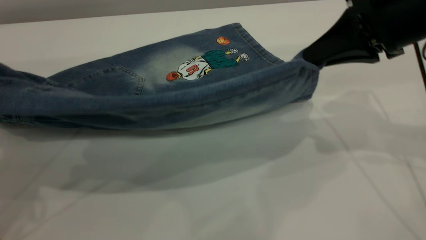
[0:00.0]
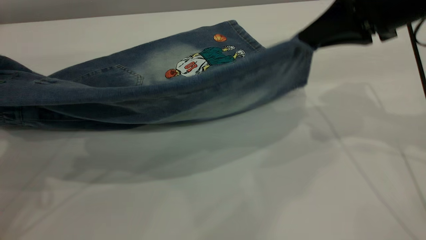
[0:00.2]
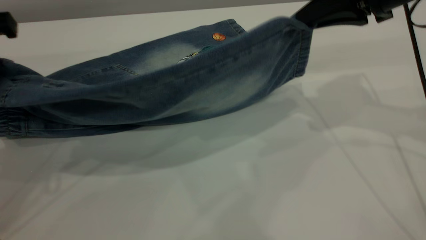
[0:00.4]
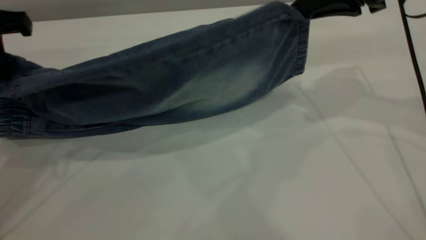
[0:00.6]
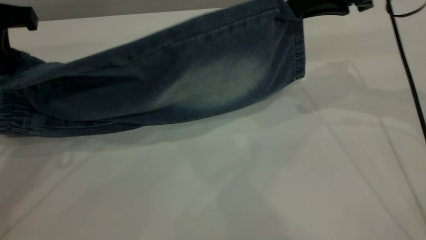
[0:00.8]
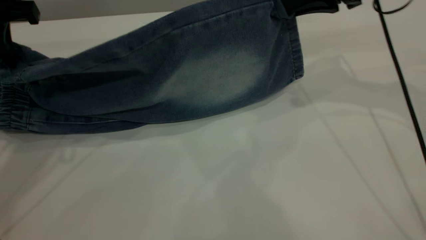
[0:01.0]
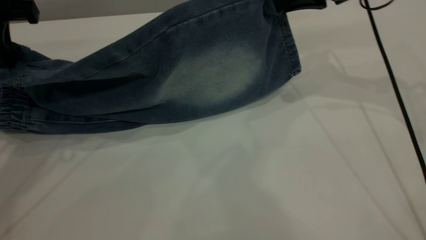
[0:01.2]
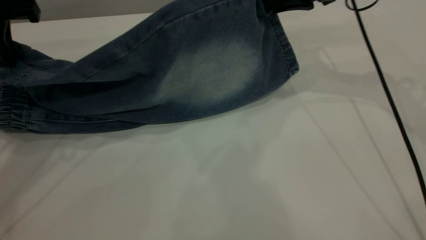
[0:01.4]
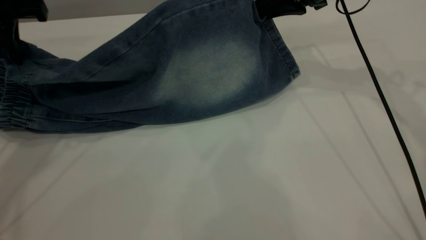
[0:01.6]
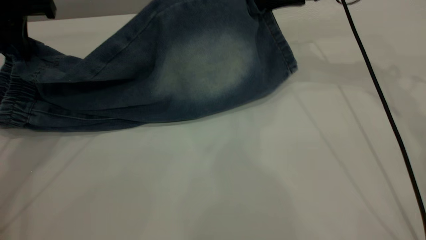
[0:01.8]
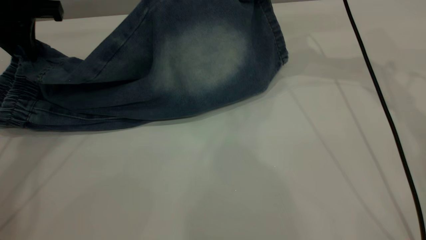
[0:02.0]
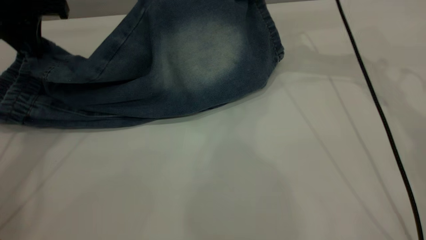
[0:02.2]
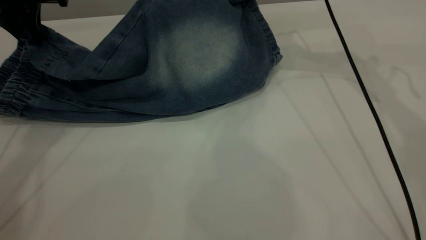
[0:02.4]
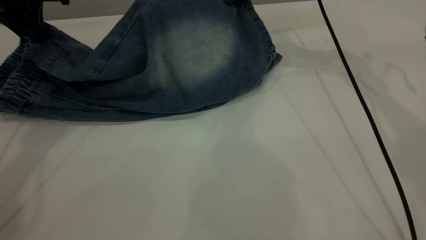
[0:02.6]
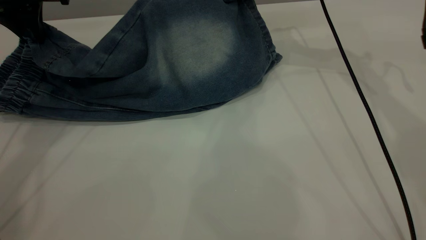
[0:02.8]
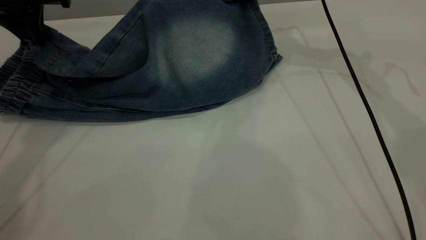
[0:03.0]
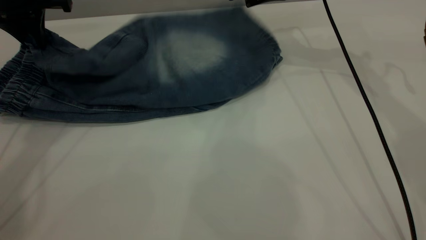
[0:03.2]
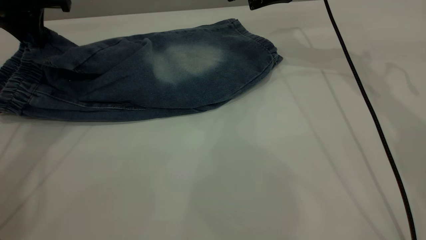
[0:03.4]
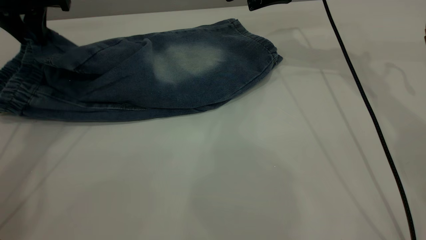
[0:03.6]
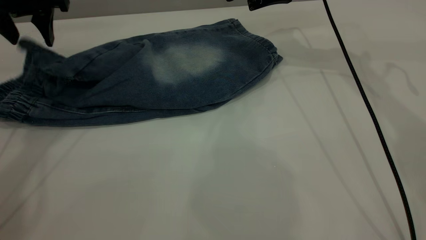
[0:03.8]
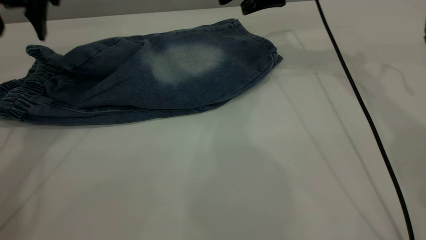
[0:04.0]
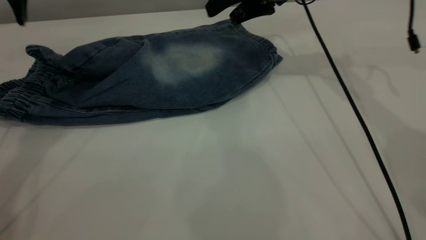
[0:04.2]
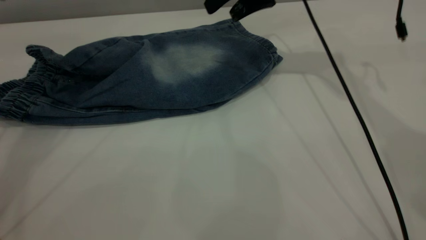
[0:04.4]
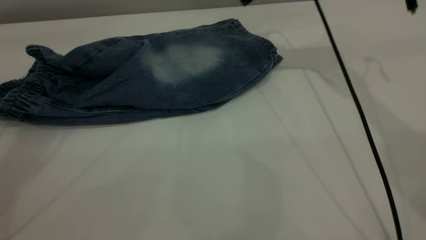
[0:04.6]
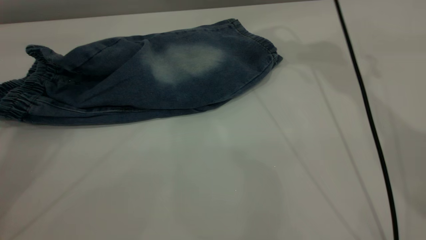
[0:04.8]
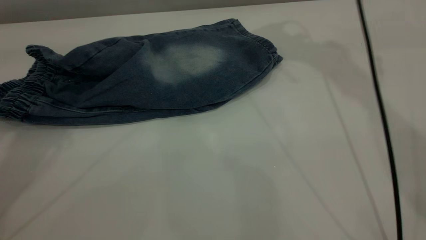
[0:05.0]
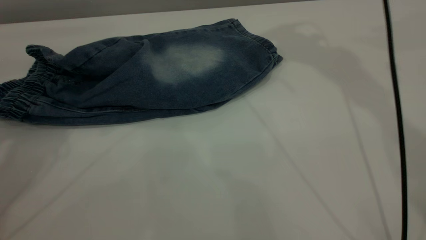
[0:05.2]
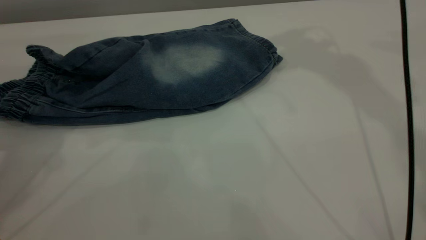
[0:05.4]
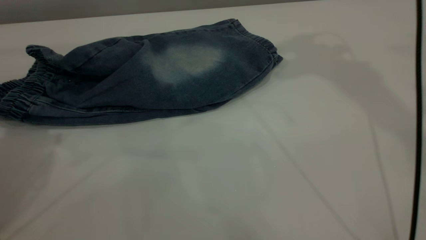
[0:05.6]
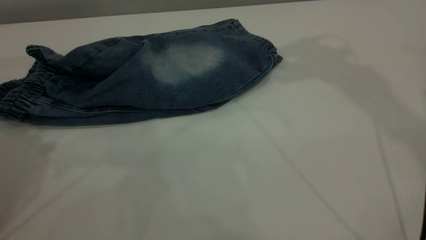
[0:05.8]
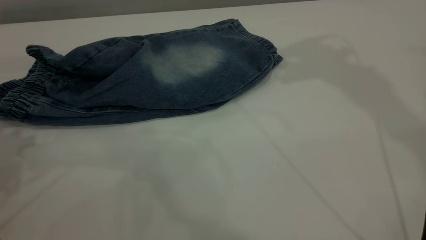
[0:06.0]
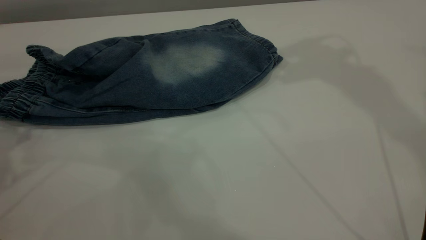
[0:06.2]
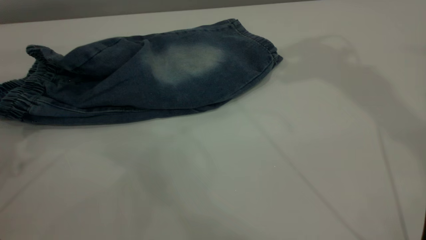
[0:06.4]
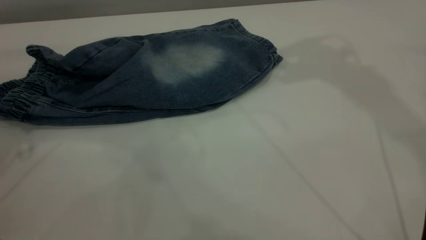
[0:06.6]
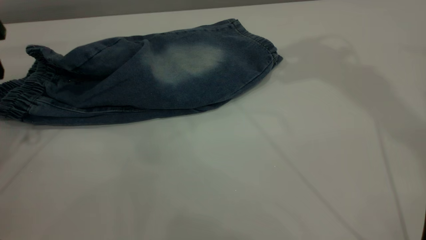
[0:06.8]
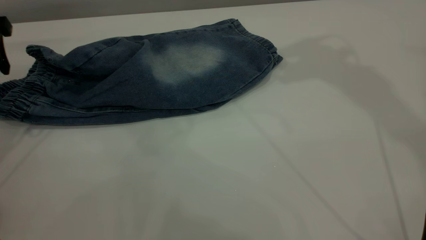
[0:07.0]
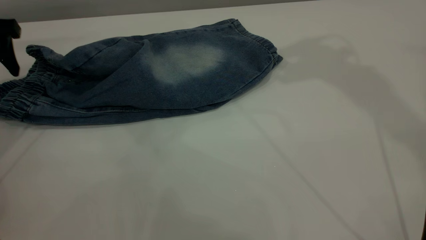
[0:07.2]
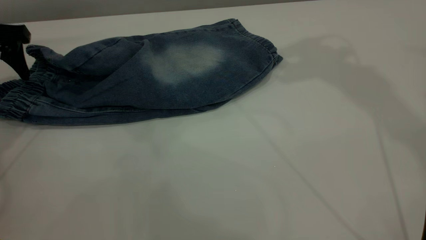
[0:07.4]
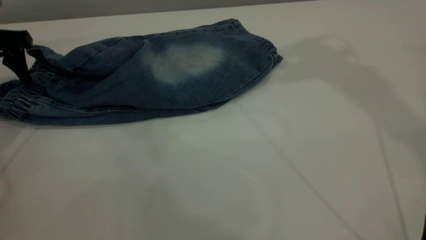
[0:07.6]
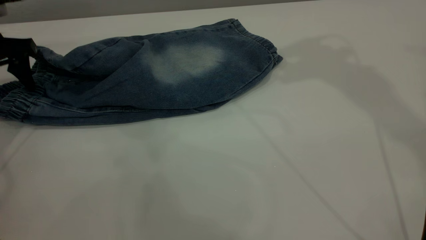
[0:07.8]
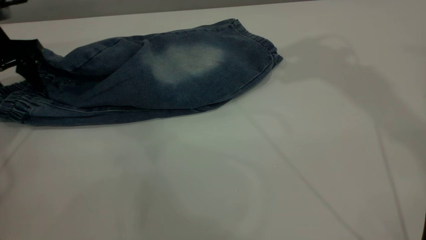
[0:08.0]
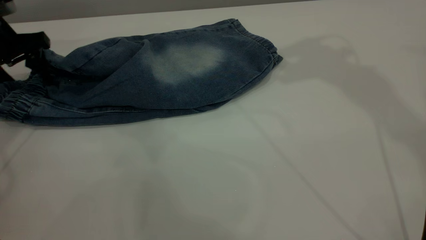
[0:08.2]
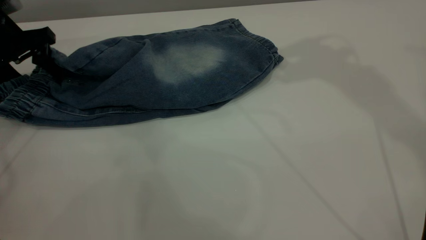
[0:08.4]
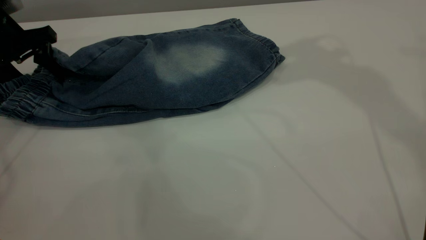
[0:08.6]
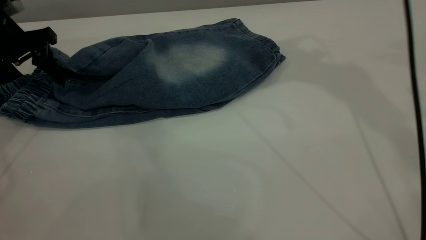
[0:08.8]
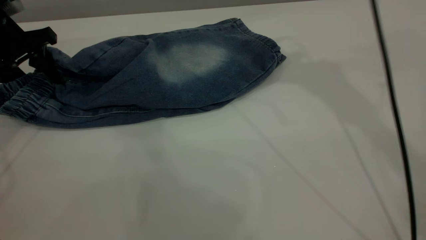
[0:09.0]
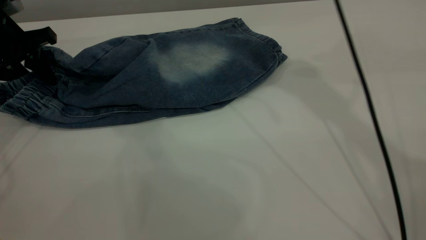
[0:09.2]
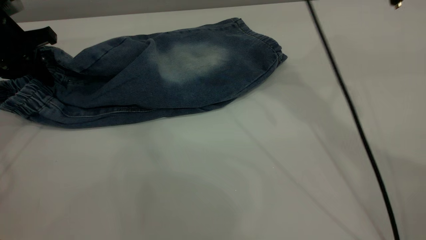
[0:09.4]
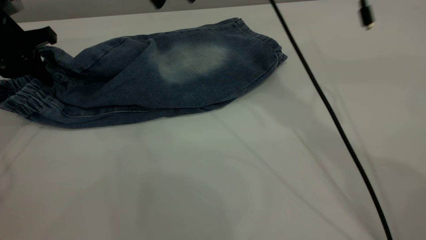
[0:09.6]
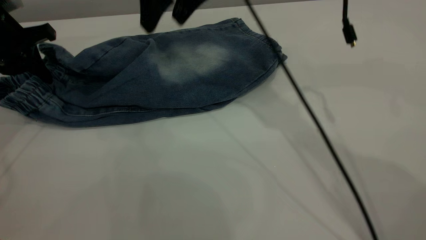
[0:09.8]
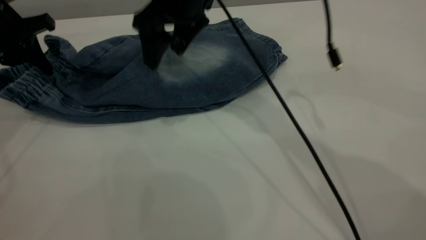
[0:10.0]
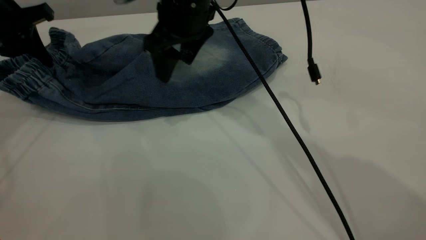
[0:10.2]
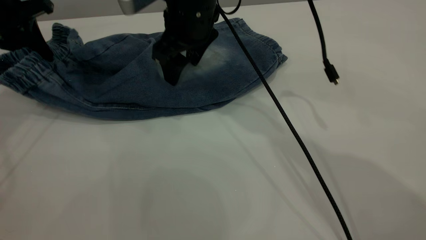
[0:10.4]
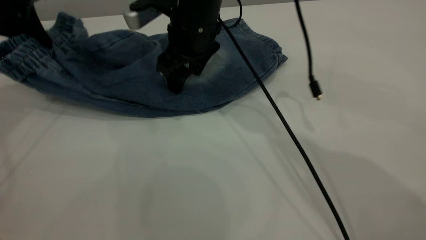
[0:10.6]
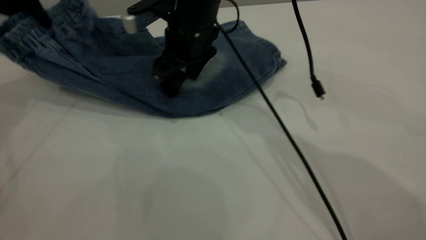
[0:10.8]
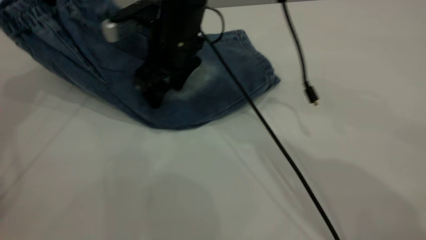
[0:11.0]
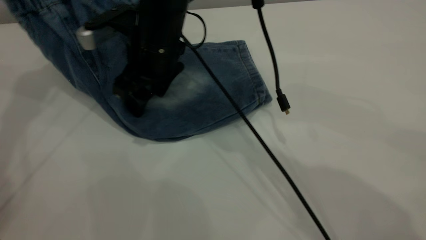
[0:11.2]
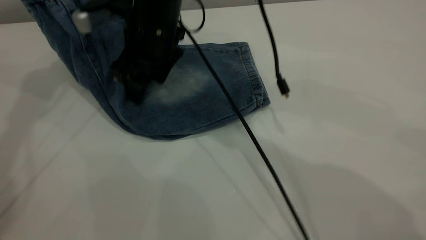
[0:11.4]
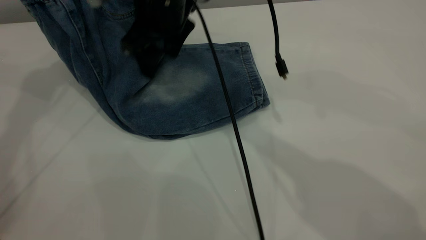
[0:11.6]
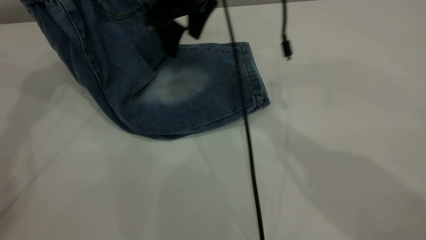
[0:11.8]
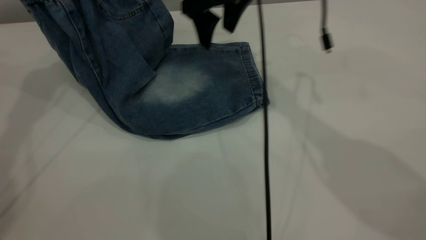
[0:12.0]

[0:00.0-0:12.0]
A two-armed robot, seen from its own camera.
Step, 0:00.0 to 0:04.2: Fold the bottom of the pants upward.
0:00.0 to 0:01.6: Both grippers move forward, about 10 cm.
0:01.6 to 0:03.0: Both grippers move forward, approximately 5 cm. The right gripper opens its fingers.
0:03.0 to 0:04.4: The right gripper opens its fingers; the left gripper moves upward, about 10 cm, and opens its fingers.
0:04.4 to 0:06.0: The left gripper travels backward, downward and to the left by about 15 cm. The right gripper is displaced upward by approximately 25 cm.
0:06.0 to 0:07.6: The left gripper moves forward and downward, approximately 15 cm.
0:07.6 to 0:09.0: The right gripper moves downward and to the left, approximately 10 cm, while the left gripper closes.
0:09.0 to 0:10.4: The left gripper closes its fingers; the right gripper shifts roughly 25 cm downward and to the left.
0:10.4 to 0:12.0: The right gripper heads to the right, covering about 5 cm, while the left gripper heads upward and to the right, covering about 10 cm.

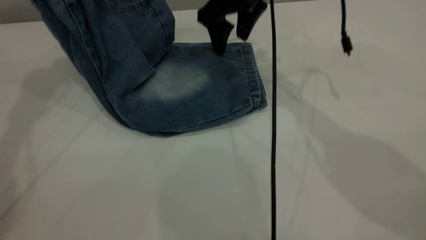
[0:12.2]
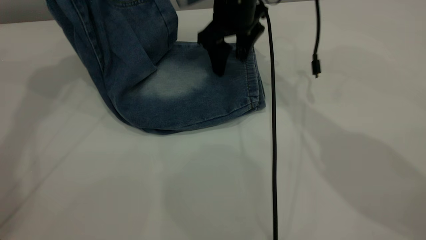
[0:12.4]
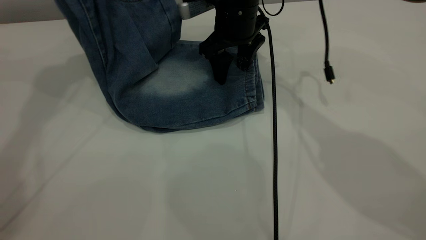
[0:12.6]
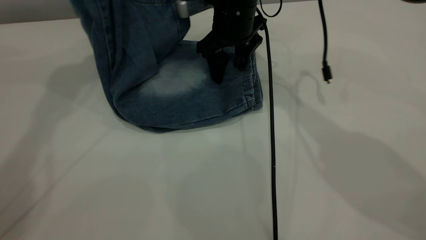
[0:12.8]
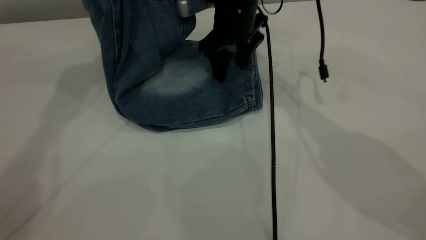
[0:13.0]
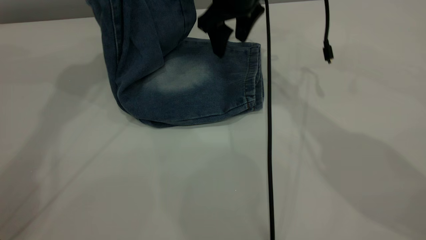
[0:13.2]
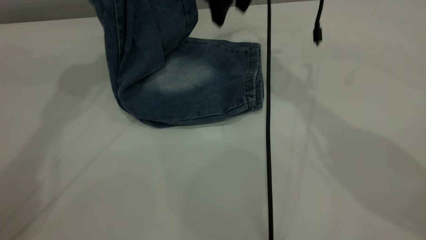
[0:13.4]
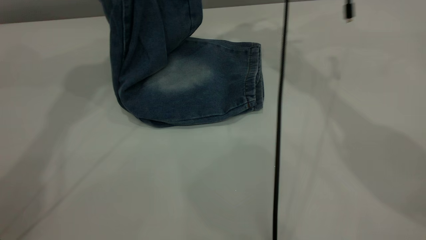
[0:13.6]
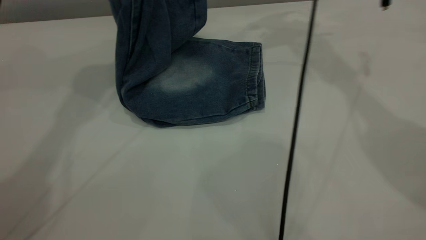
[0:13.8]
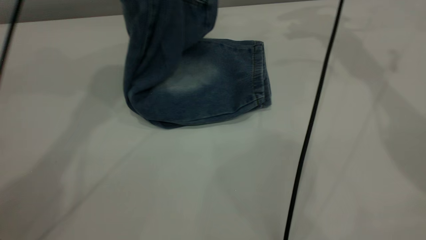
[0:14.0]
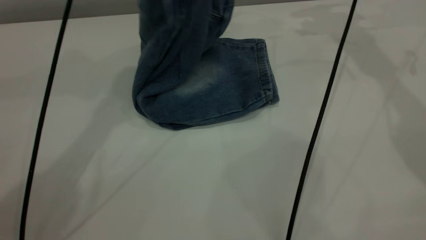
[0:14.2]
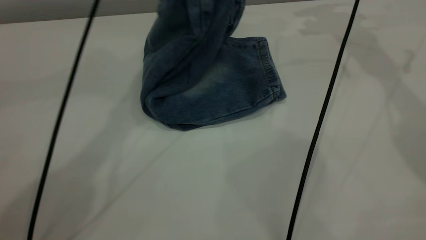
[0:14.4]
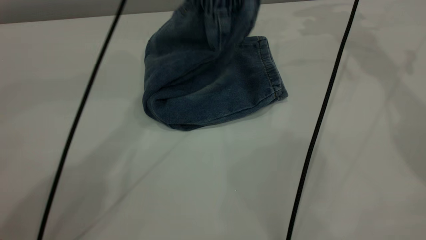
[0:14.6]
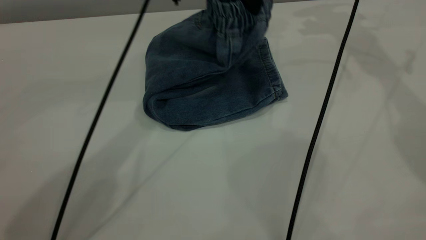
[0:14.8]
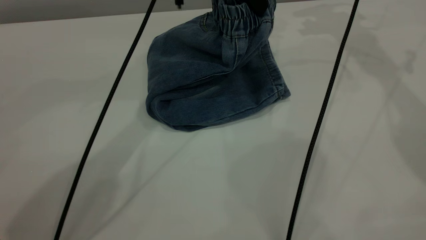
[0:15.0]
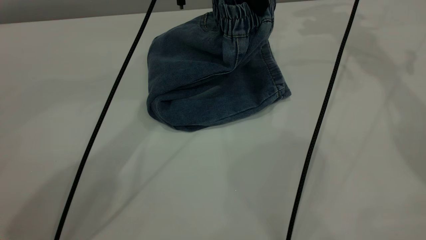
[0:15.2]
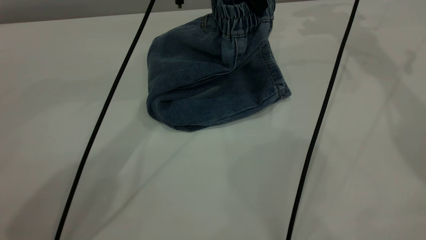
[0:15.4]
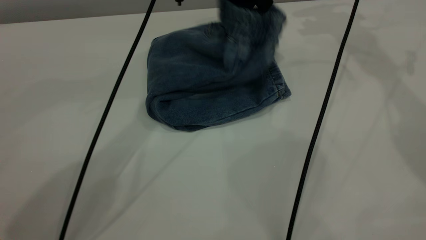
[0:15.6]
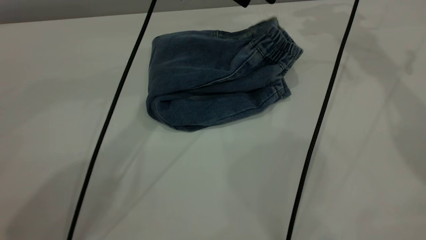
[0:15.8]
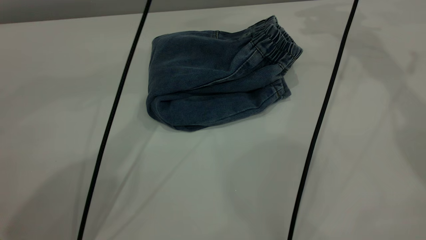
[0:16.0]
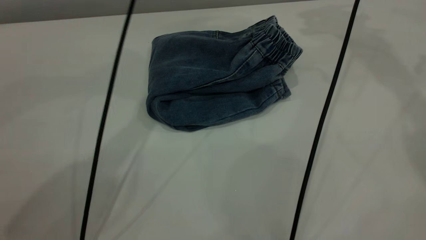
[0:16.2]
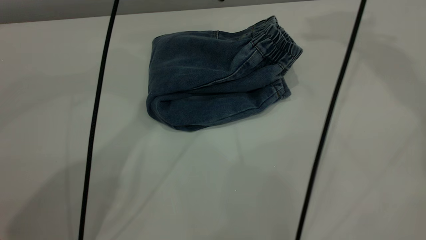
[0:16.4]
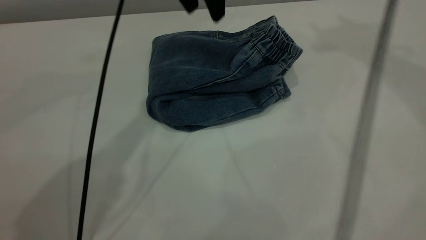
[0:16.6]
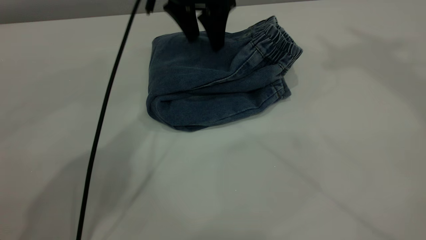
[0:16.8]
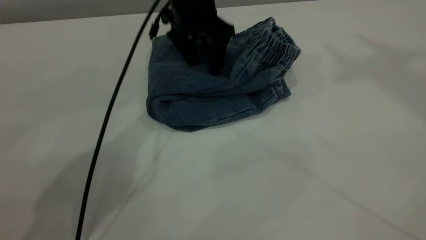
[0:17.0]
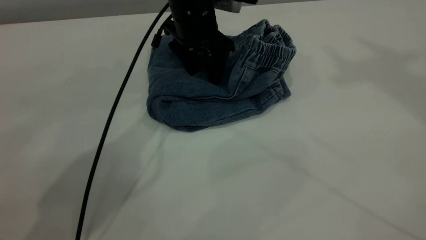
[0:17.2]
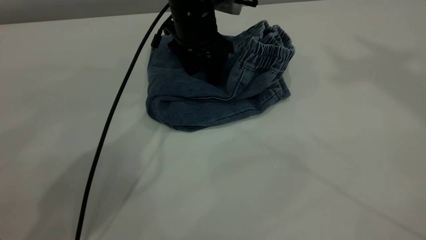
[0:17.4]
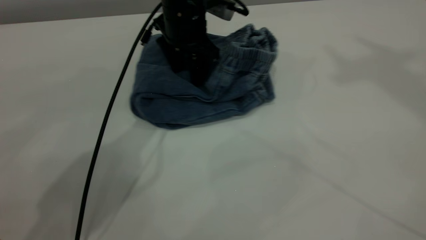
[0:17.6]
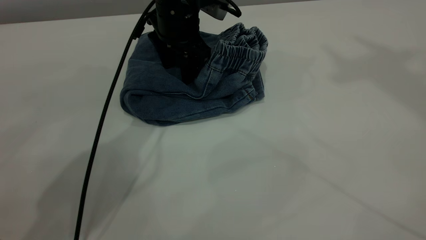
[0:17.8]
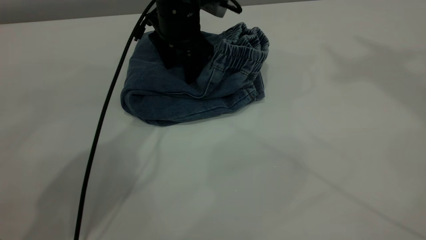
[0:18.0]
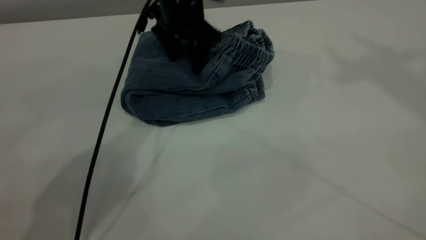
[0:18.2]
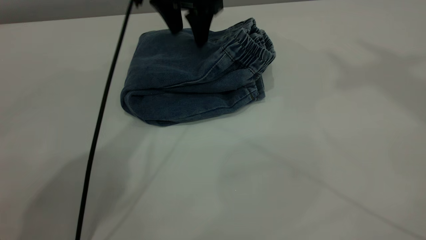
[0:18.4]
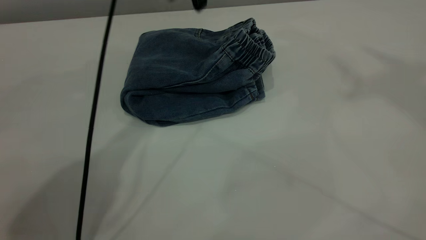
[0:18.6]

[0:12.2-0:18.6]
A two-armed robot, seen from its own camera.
Step, 0:12.2 to 0:16.0: Fold the pants from left to right.
0:12.2 to 0:13.8: The left gripper is displaced to the right by roughly 10 cm. Meanwhile the right gripper is displaced to the right, upward and forward by roughly 20 cm.
0:13.8 to 0:15.4: The left gripper shifts approximately 15 cm to the right and downward. The right gripper moves to the right, some 5 cm.
0:15.4 to 0:17.0: The right gripper is displaced upward and backward by some 40 cm; the left gripper shifts about 10 cm downward, and opens up.
0:17.0 to 0:18.6: The left gripper shifts roughly 15 cm upward. The right gripper ends up some 5 cm from where it was.
